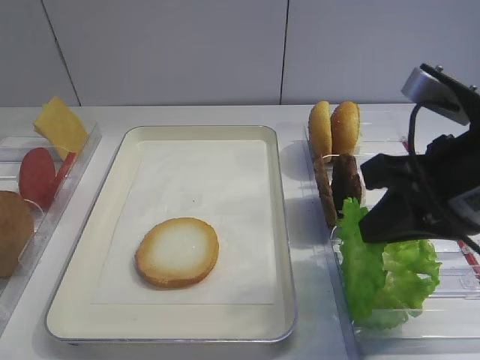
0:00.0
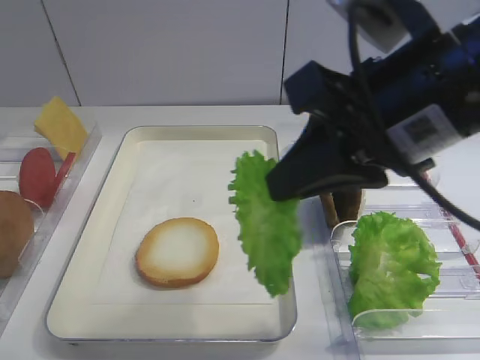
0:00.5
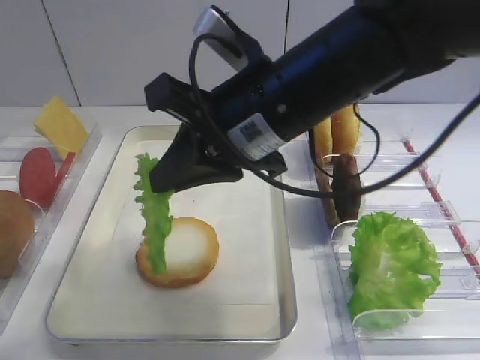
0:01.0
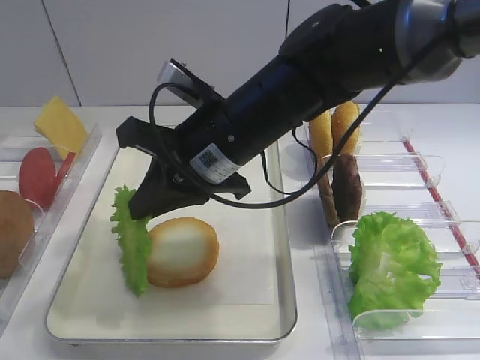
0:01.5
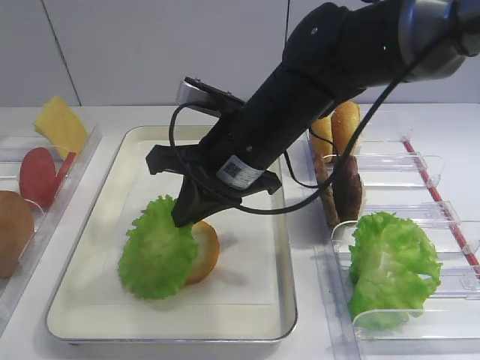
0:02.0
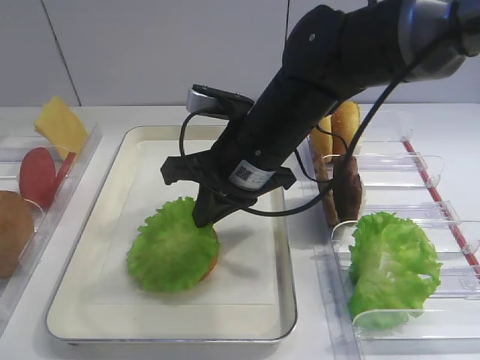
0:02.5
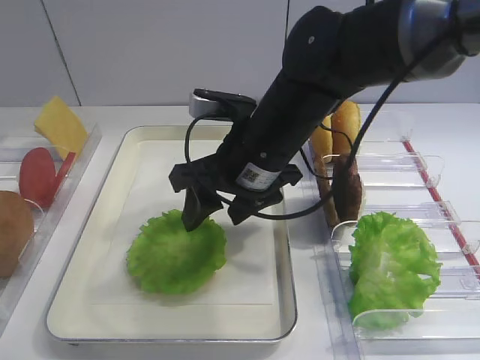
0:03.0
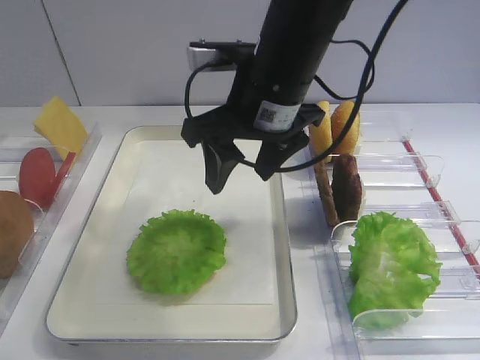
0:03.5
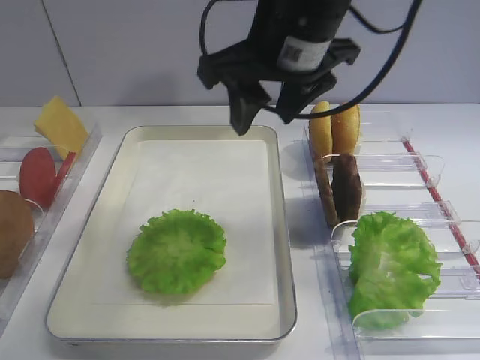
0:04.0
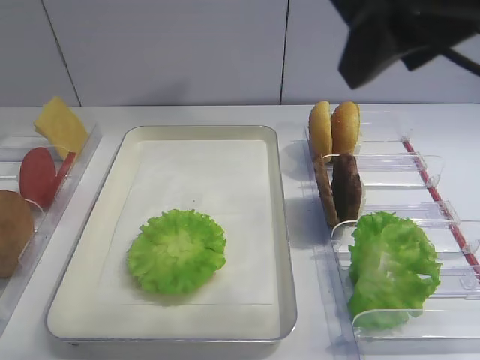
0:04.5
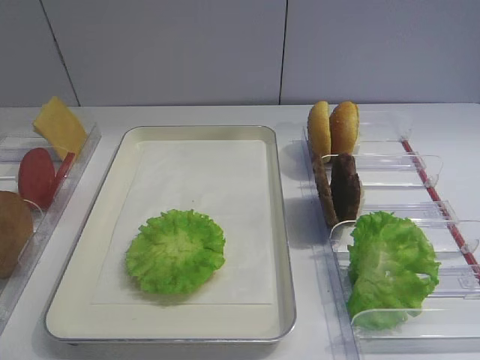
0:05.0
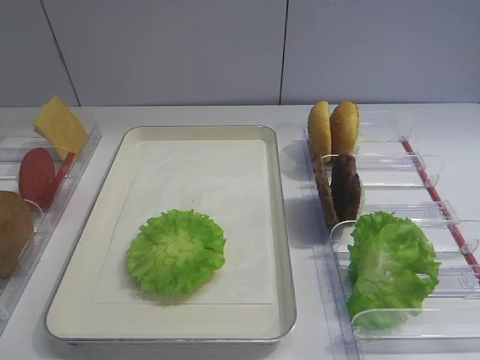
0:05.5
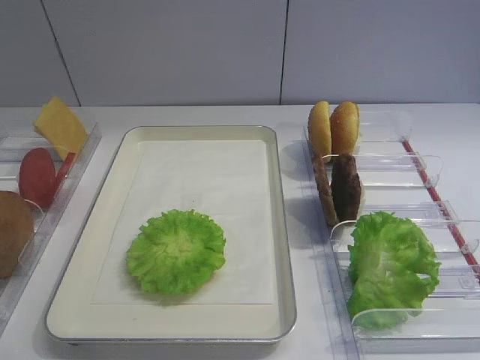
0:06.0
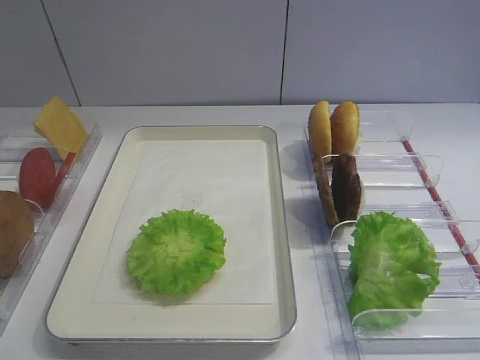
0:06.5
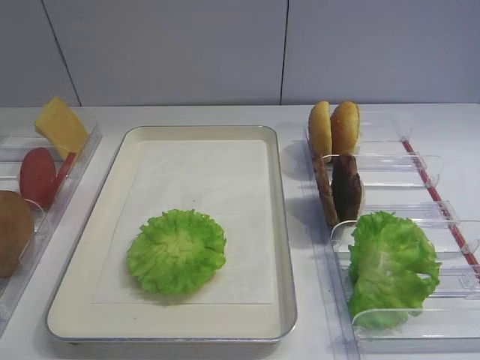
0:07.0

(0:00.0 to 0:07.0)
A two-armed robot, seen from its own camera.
Step, 0:00.5 - 0:03.0: Place the lettuce leaf on the bread slice with the right gripper.
0:00.0 - 0:02.0: The right gripper moves to the left and forward, roughly 20 cm.
0:02.0 - 0:03.5: The right gripper heads upward, covering roughly 5 cm, and opens.
0:03.5 - 0:05.0: The right gripper goes approximately 30 cm backward, to the right and upward.

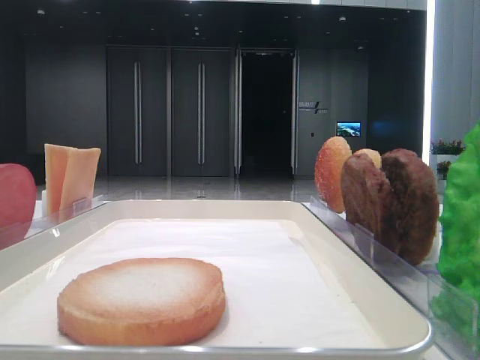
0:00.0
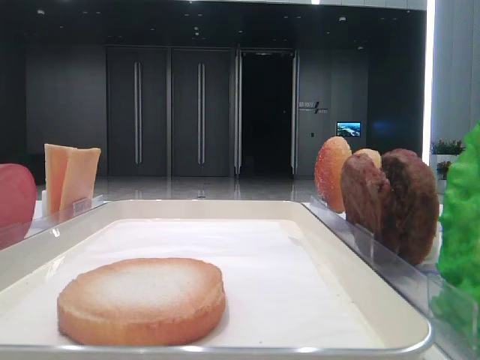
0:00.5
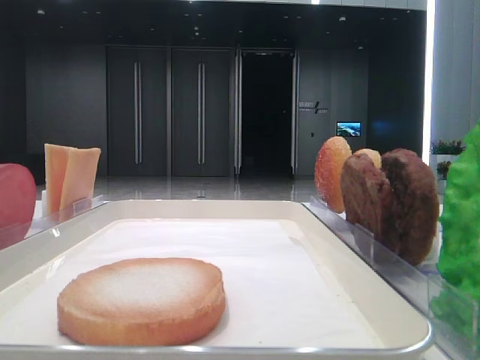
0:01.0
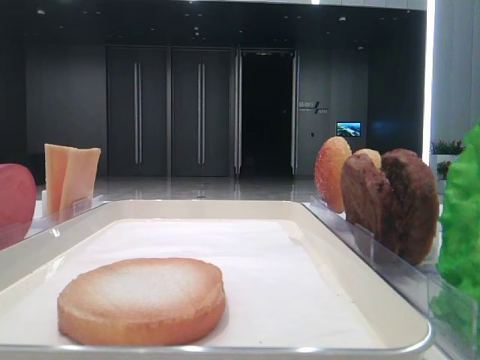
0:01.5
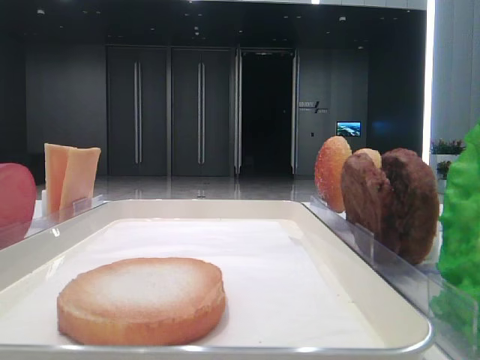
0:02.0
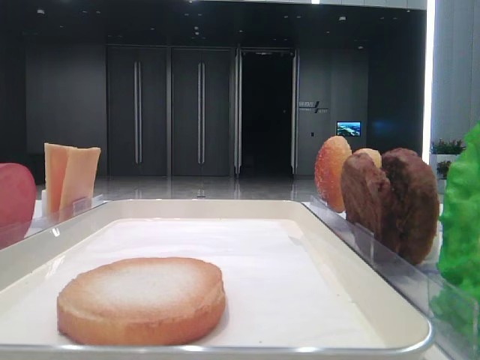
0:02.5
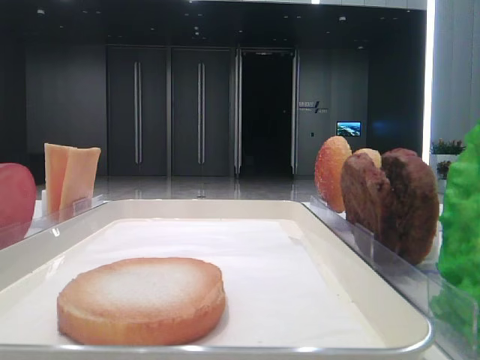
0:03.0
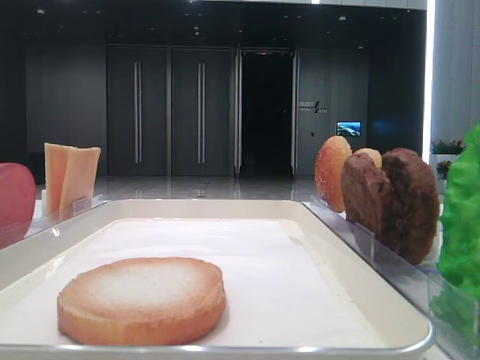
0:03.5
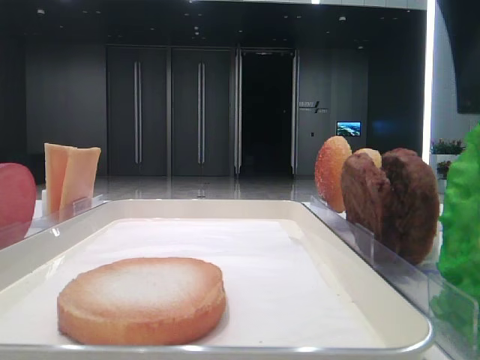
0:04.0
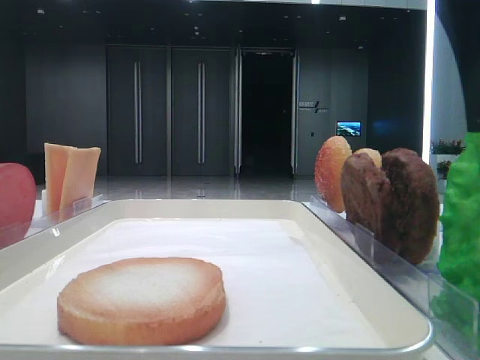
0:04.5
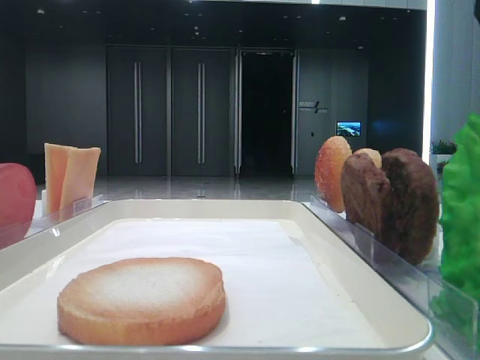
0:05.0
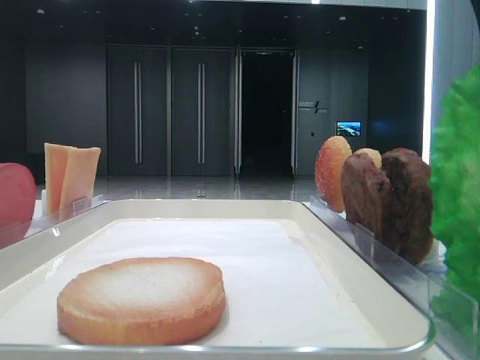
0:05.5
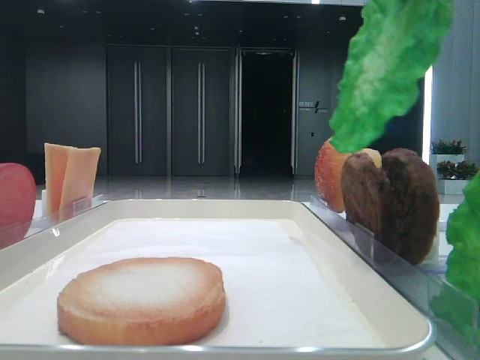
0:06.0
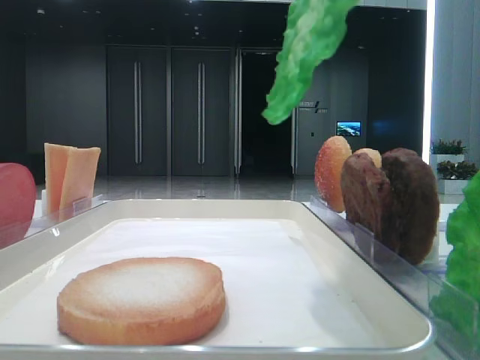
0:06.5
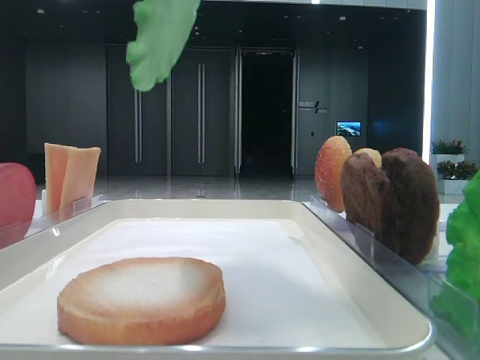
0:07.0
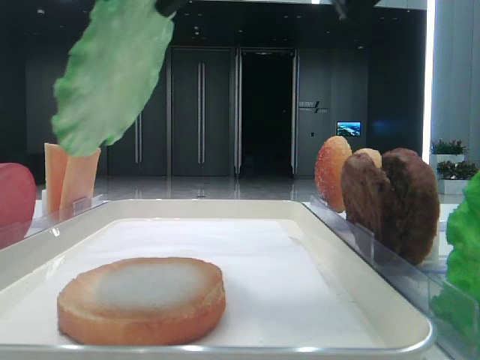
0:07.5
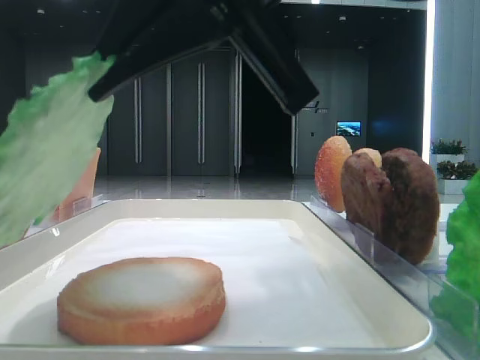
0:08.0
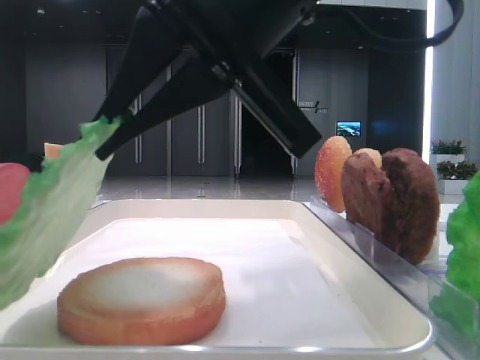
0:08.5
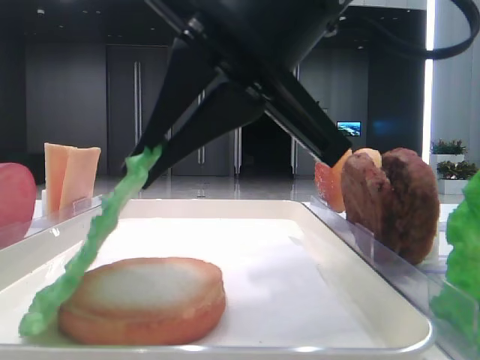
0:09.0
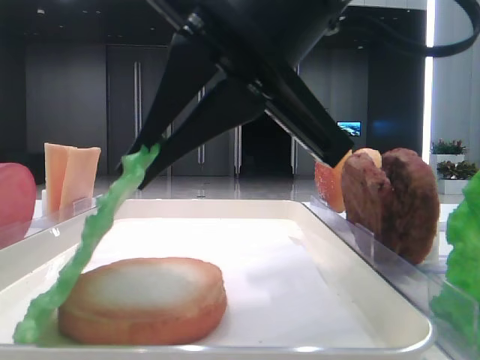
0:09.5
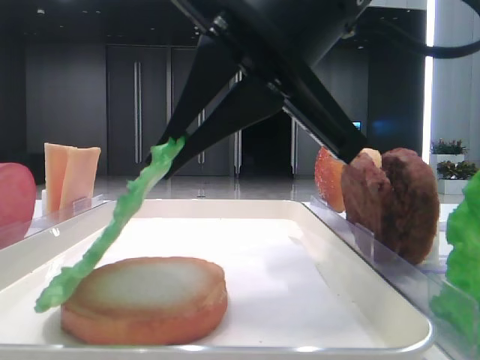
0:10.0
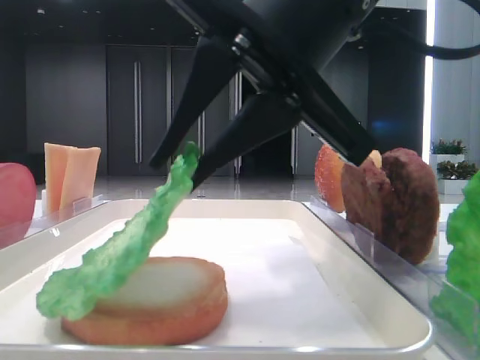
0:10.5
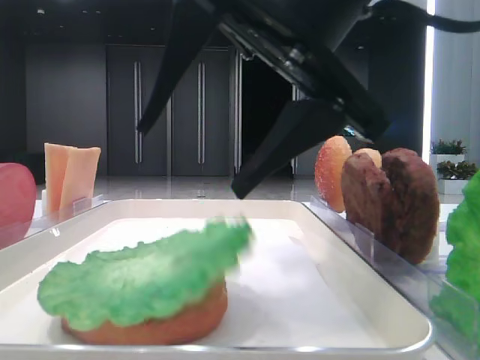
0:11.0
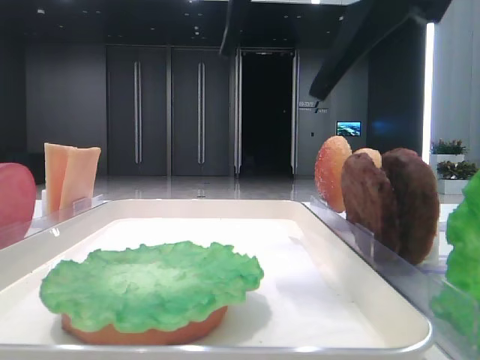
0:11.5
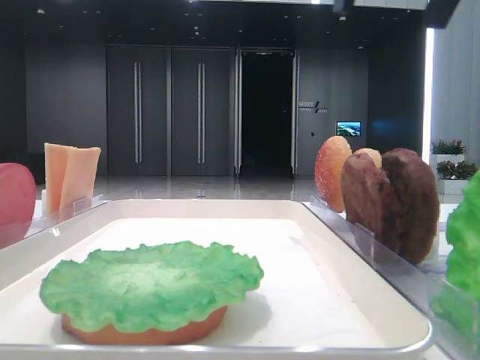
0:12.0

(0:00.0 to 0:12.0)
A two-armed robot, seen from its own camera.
Step, 0:00.0 - 0:04.5: Grab the lettuce leaf with the right hand.
Step, 0:05.0 - 0:11.0: Place the lettuce leaf on the bottom bread with the right hand.
0:02.0 - 0:04.0: The right gripper is displaced to the left and forward by roughly 15 cm.
0:04.0 - 0:06.0: The right gripper heads upward, covering approximately 5 cm, and closes up.
0:06.0 - 0:08.0: The right gripper travels to the left and downward by roughly 15 cm.
0:08.0 - 0:10.0: There are only small adjustments of the grippers.
0:10.0 - 0:12.0: The right gripper goes some 15 cm upward and to the right, and opens up.

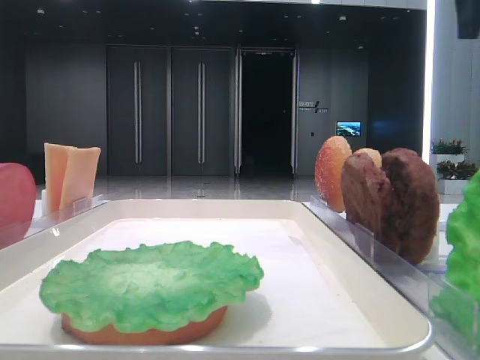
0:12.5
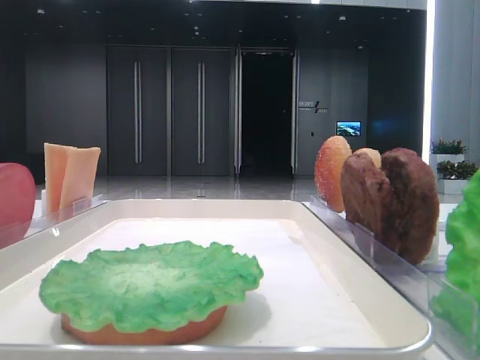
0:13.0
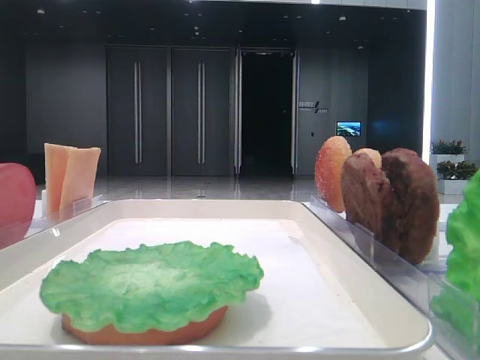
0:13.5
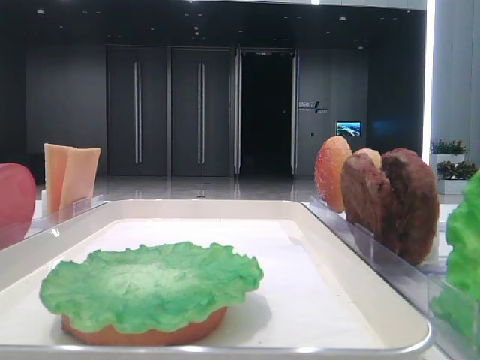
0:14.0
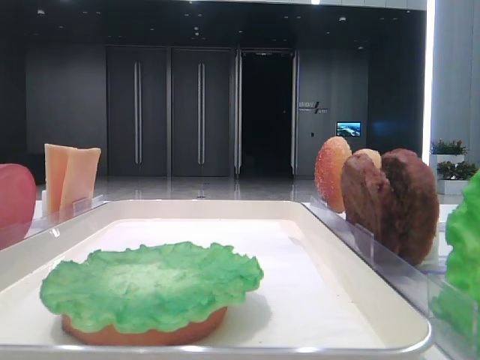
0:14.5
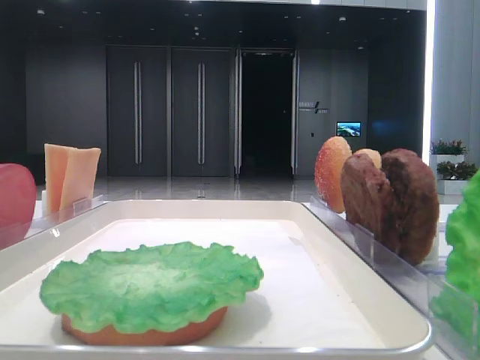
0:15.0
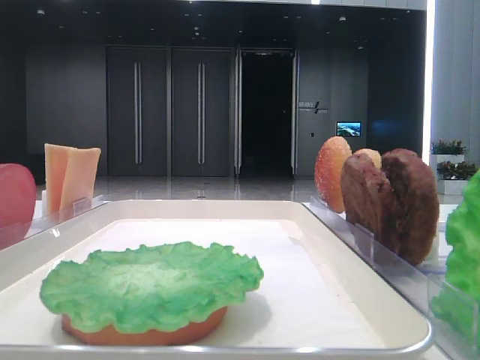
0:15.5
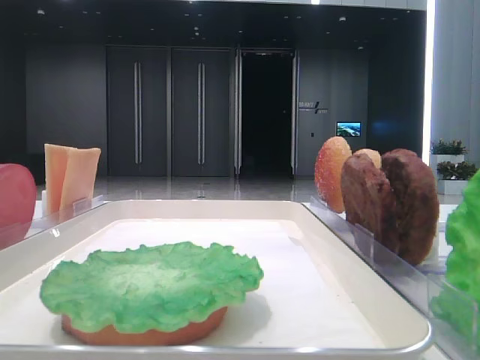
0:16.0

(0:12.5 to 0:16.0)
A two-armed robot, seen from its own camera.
0:12.5 - 0:14.5: The right gripper shifts roughly 25 cm backward.

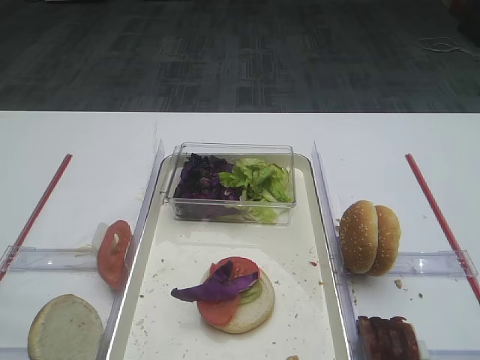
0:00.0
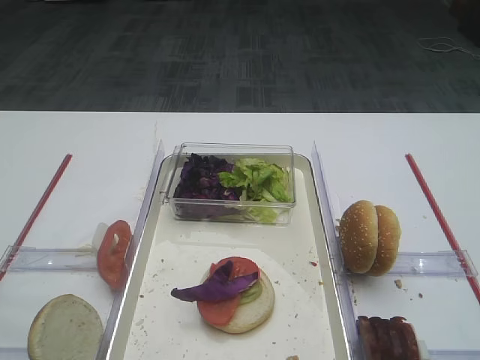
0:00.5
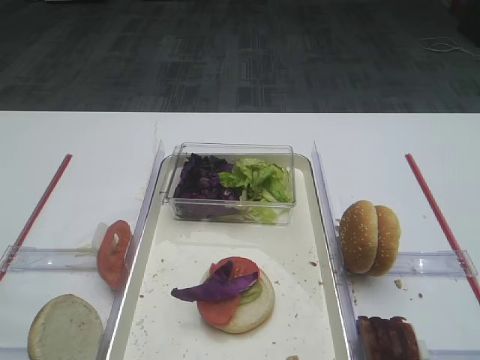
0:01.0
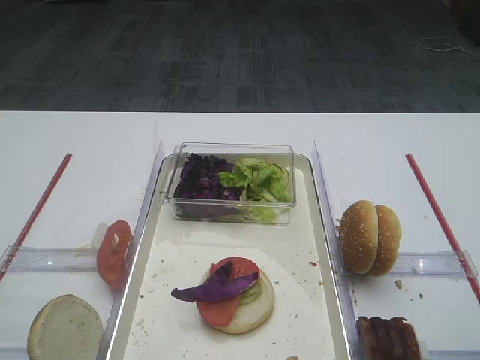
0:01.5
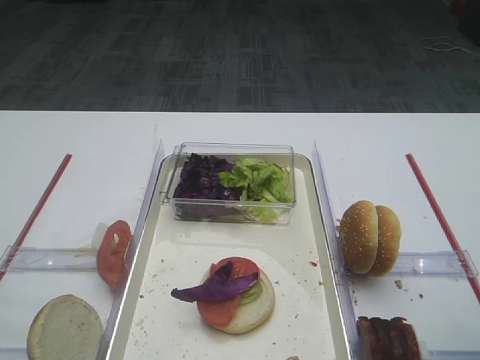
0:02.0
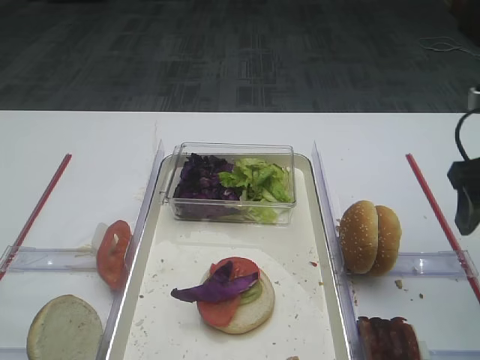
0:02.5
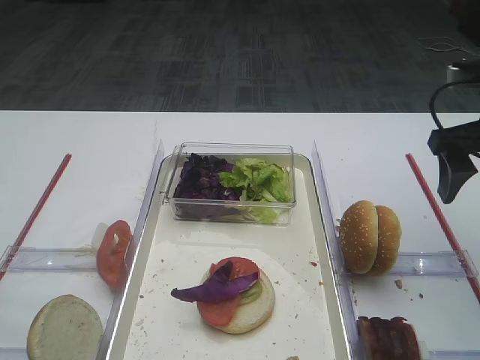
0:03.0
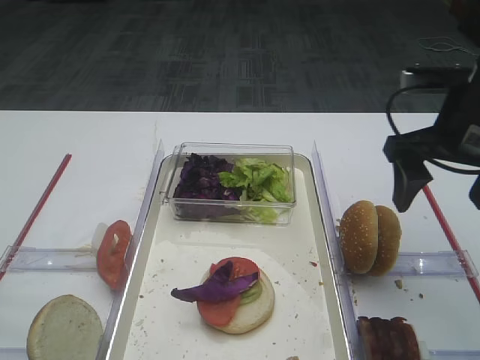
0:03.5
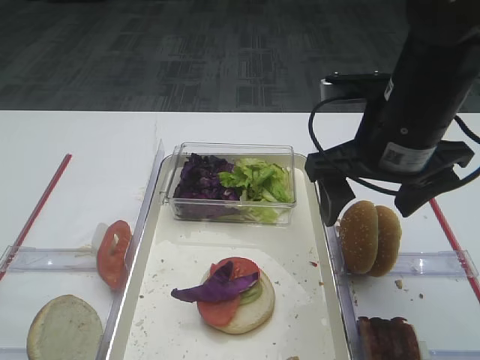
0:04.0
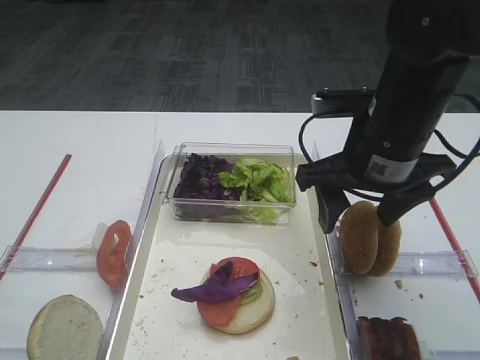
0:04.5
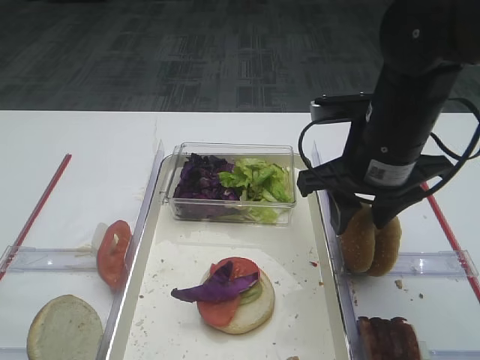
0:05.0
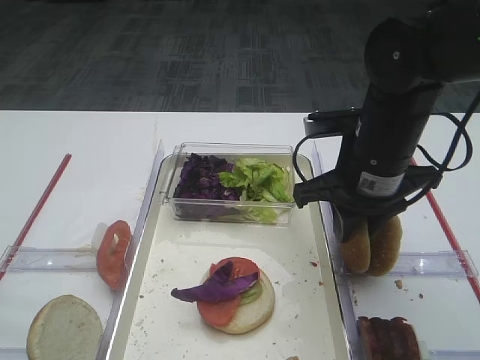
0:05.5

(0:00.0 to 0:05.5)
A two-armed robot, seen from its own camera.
0:02.0 - 0:03.5: The right gripper heads forward, covering about 15 cm.
0:03.5 - 0:05.5: The right gripper is displaced to the left and downward by approximately 10 cm, and closes.
